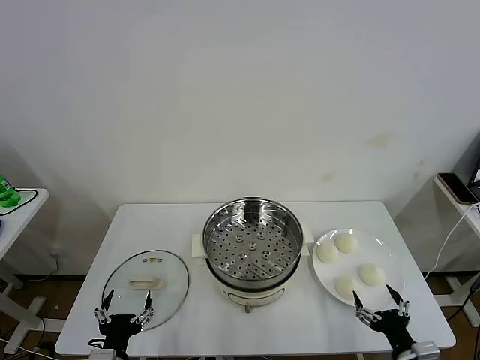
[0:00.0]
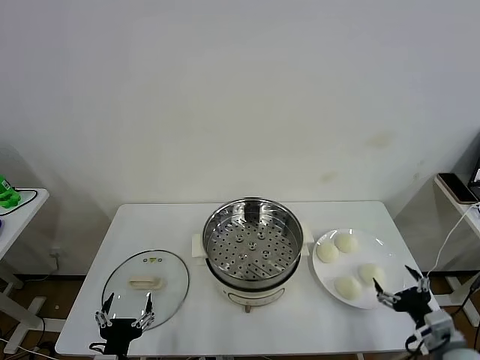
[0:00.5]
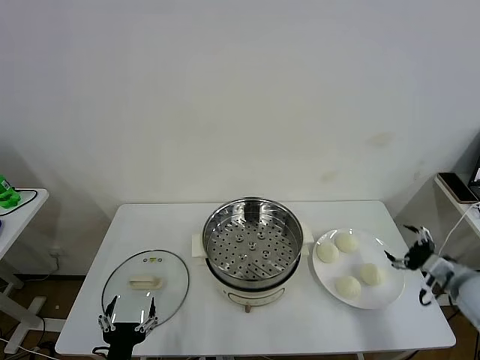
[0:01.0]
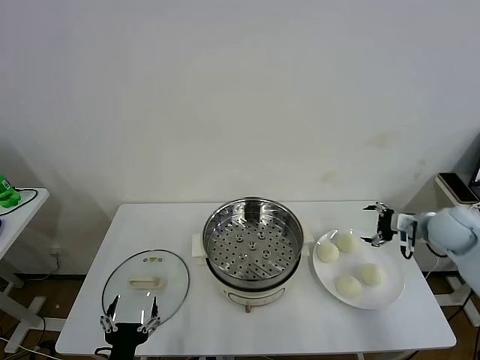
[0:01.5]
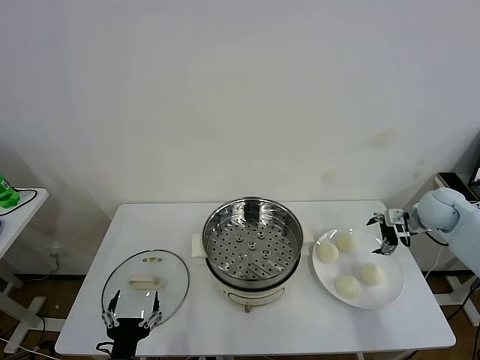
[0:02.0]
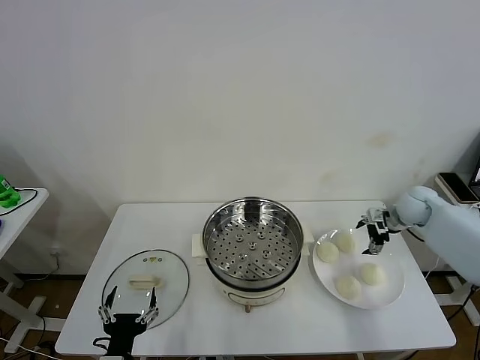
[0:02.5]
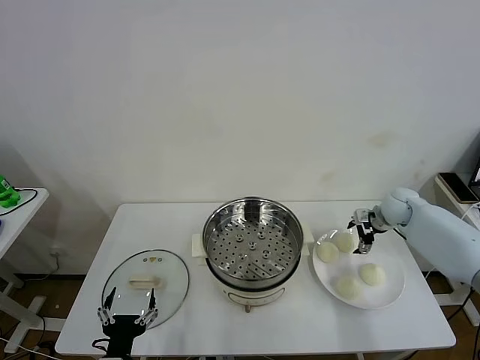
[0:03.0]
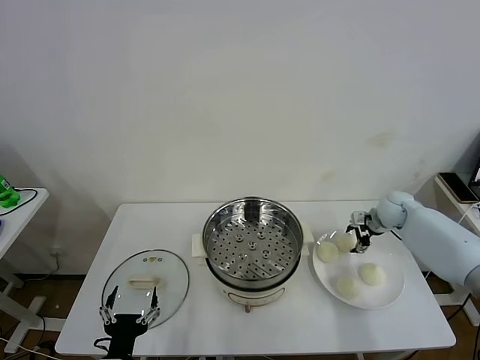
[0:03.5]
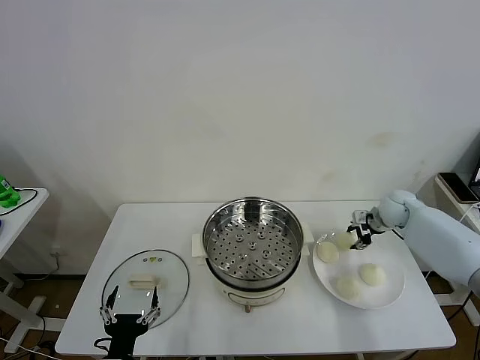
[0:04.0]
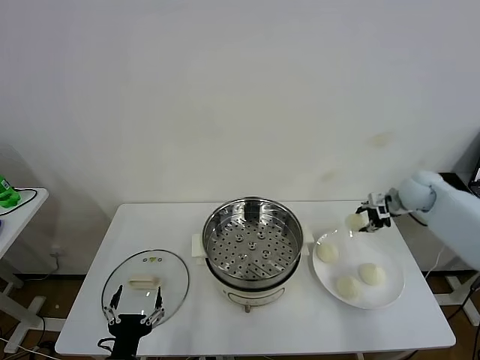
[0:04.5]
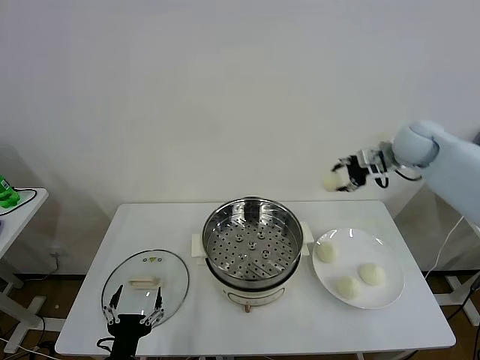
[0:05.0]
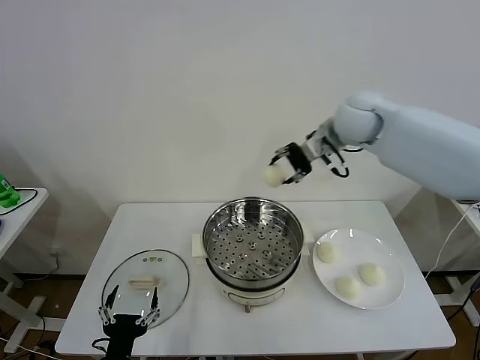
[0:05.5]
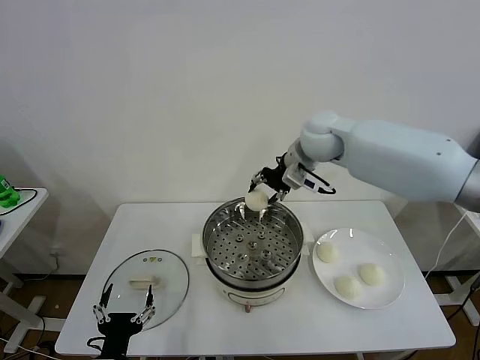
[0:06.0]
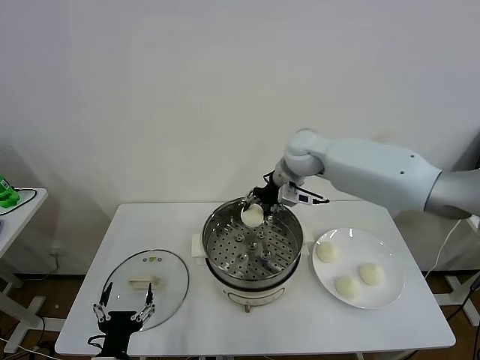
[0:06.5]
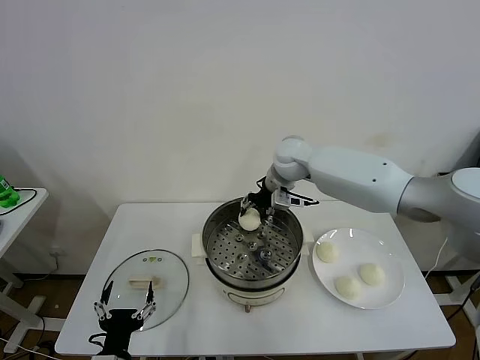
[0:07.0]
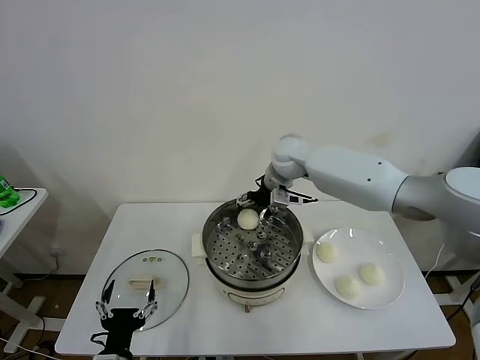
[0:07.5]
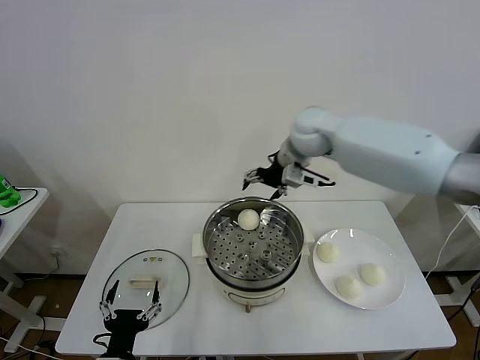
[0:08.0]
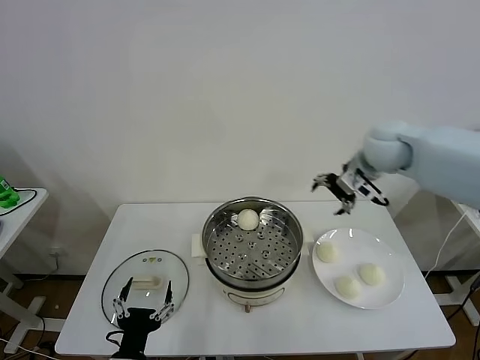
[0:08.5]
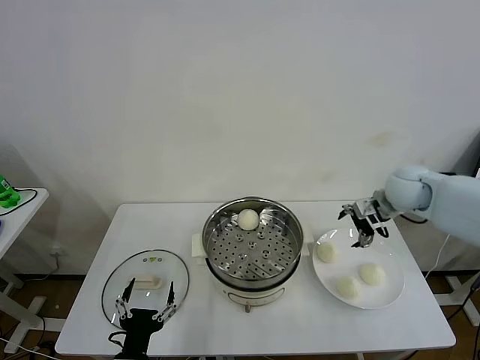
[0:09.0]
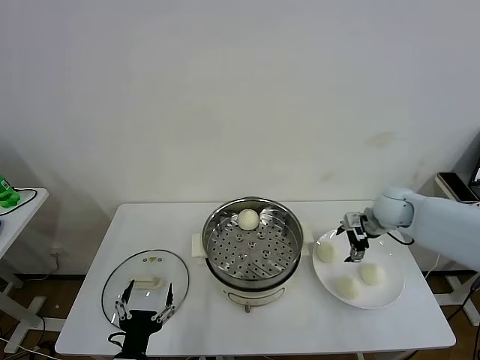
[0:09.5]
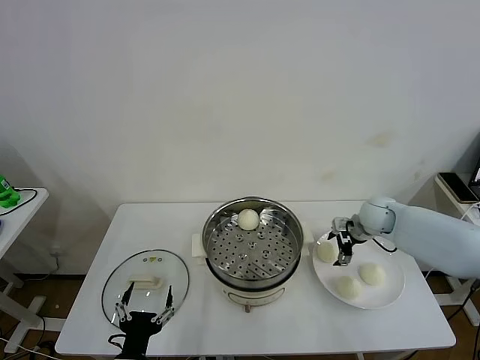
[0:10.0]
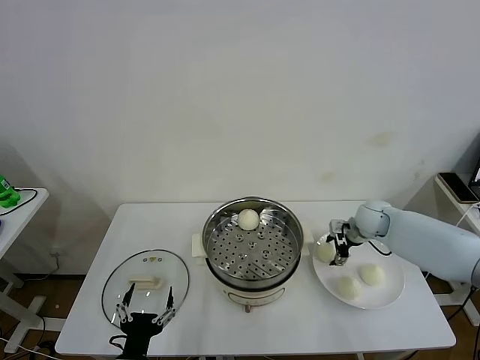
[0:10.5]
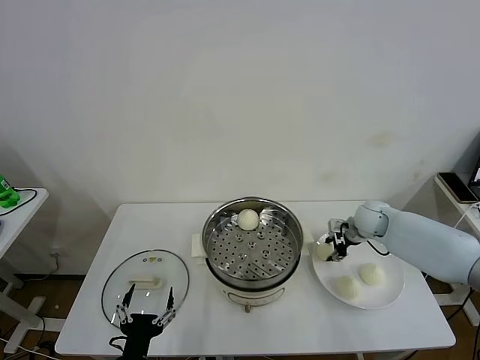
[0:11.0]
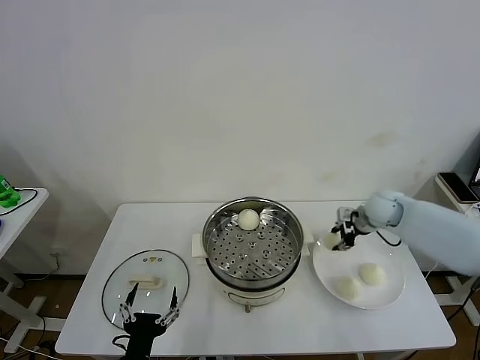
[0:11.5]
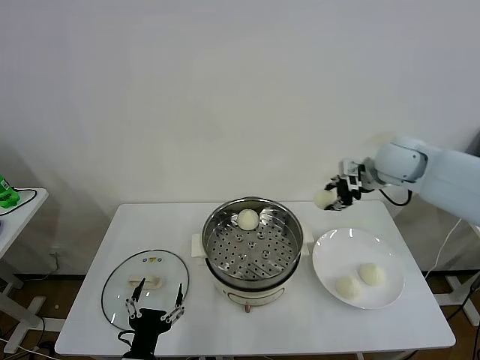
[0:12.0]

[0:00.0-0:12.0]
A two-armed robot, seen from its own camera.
Task of the whole recording: take steamed baozi put them in steamer then cover it.
Step, 0:00.0 to 0:03.5: Grasp the baozi with right gripper.
Step, 0:04.0 to 0:07.0: Place the baozi on the plate with right gripper.
Step, 0:07.5 to 0:11.0: Grasp the baozi with right gripper.
0:02.0 to 0:04.0: The right gripper shifts by some 10 cm, and closes its fingers.
0:04.0 to 0:06.0: The right gripper goes about 30 cm to the left and upward.
0:06.0 to 0:08.0: The right gripper reaches some 5 cm downward, then returns, and opens.
0:08.0 to 0:10.0: The right gripper travels downward and to the right by about 30 cm.
0:10.0 to 0:12.0: The right gripper heads upward, covering roughly 20 cm, and closes.

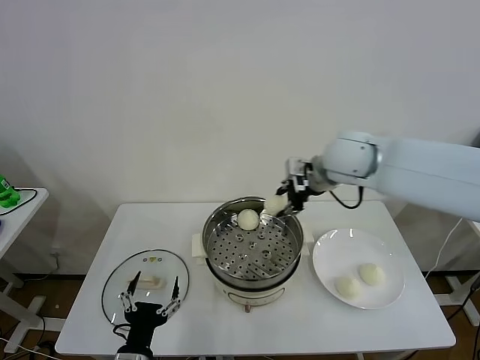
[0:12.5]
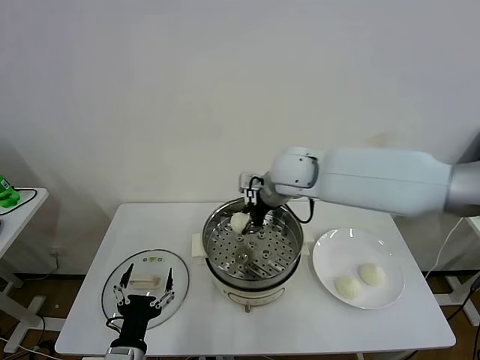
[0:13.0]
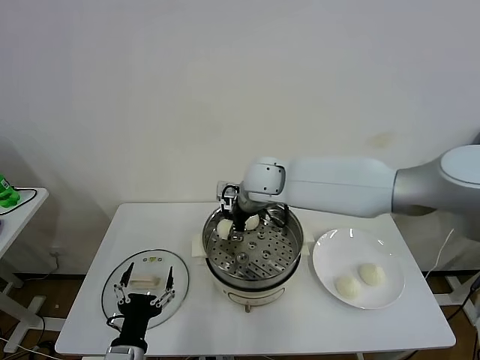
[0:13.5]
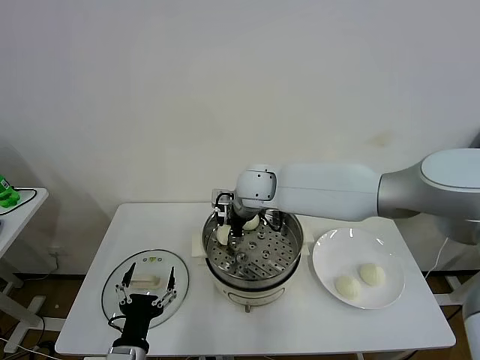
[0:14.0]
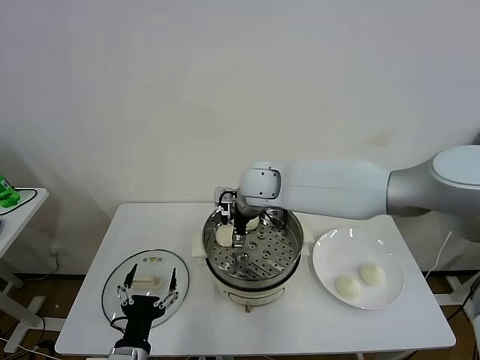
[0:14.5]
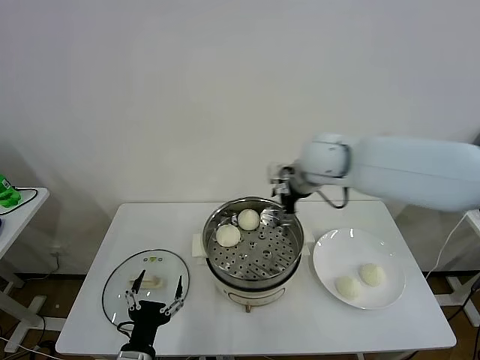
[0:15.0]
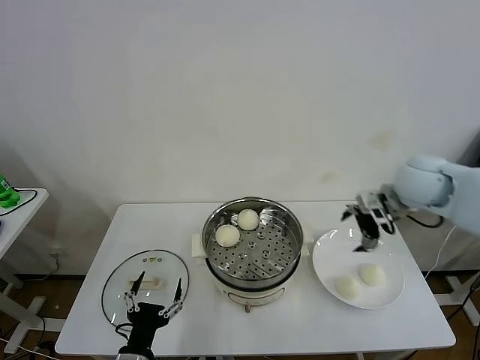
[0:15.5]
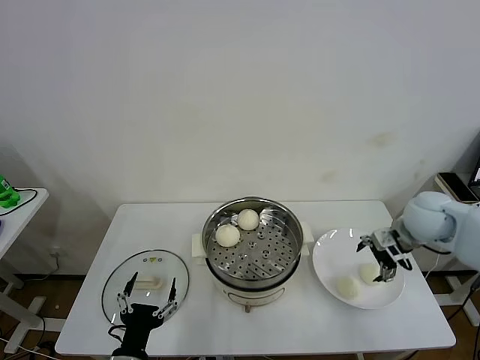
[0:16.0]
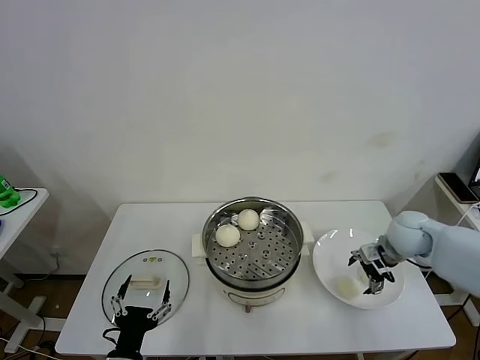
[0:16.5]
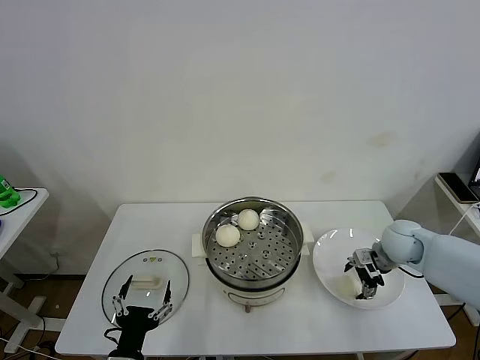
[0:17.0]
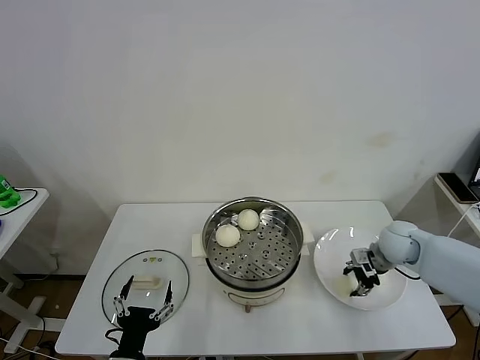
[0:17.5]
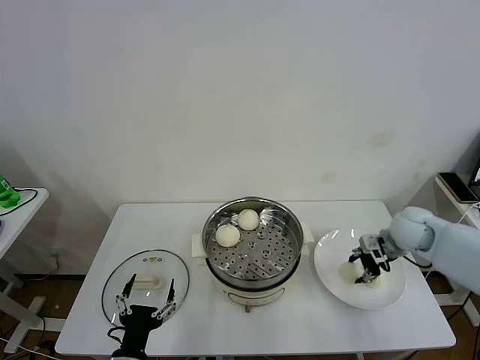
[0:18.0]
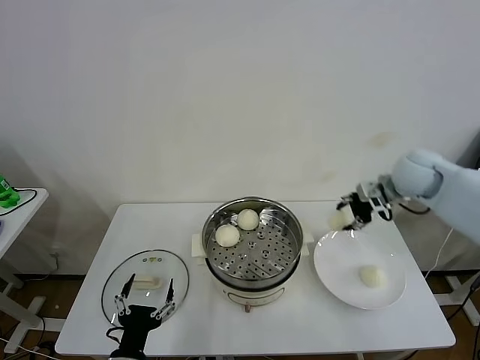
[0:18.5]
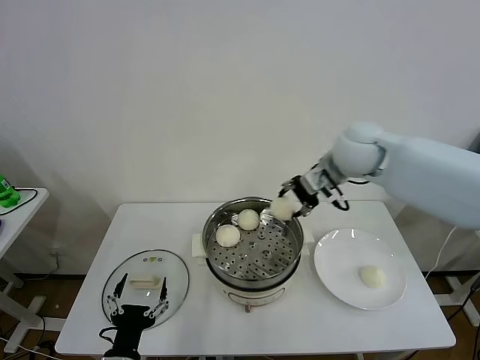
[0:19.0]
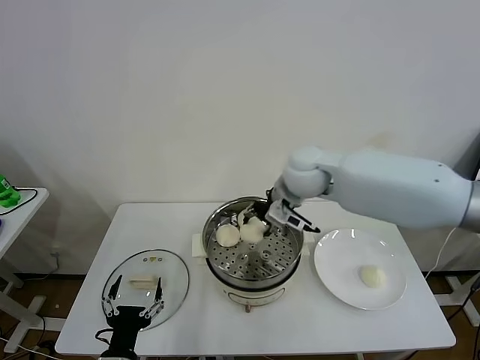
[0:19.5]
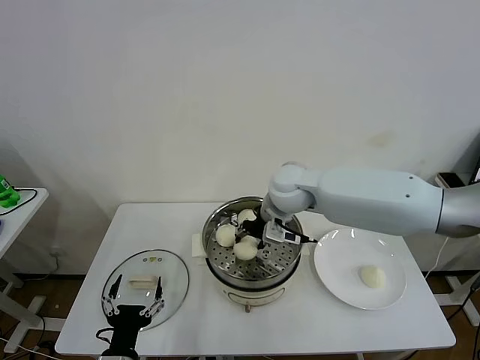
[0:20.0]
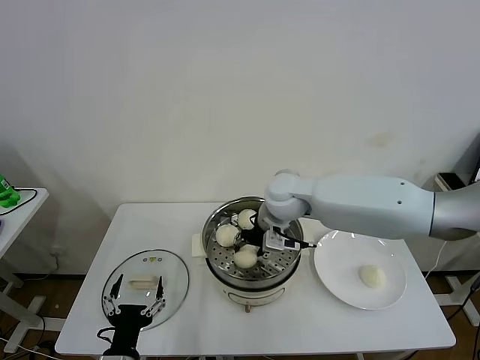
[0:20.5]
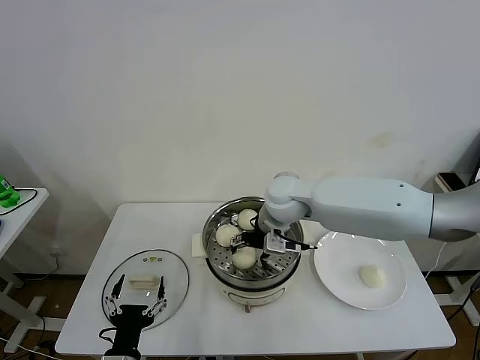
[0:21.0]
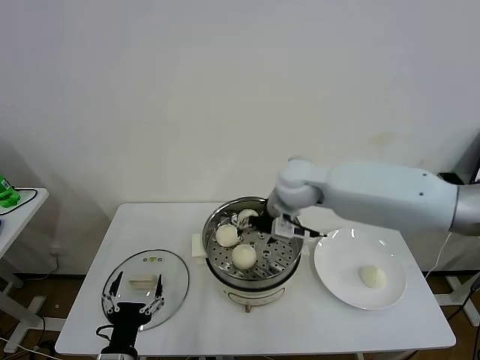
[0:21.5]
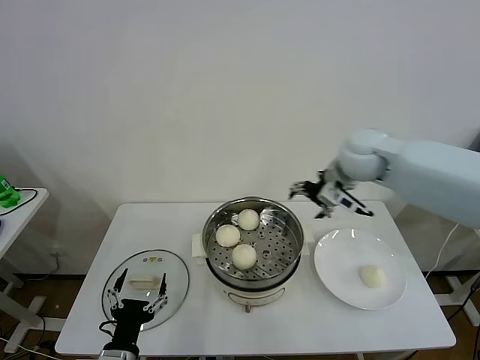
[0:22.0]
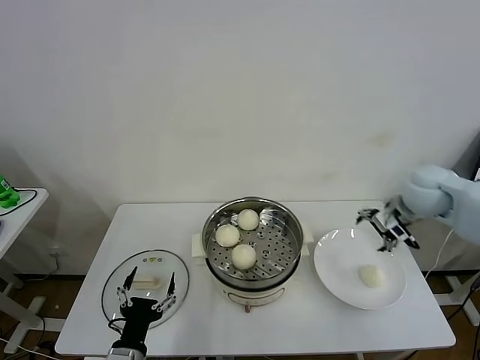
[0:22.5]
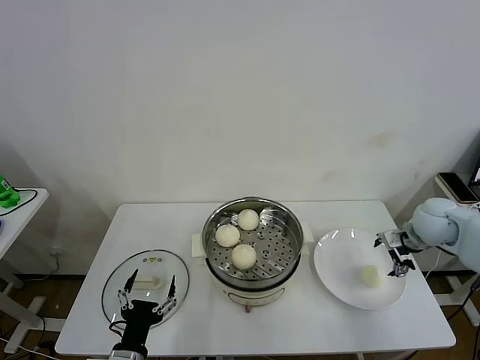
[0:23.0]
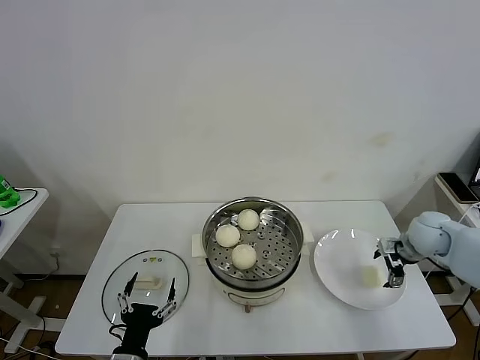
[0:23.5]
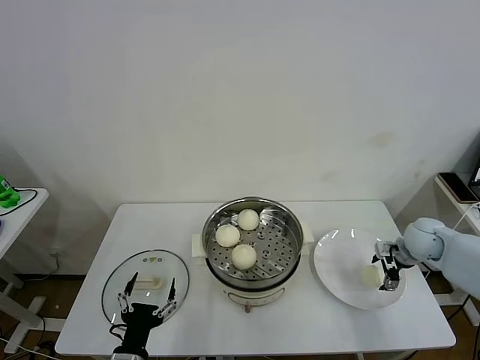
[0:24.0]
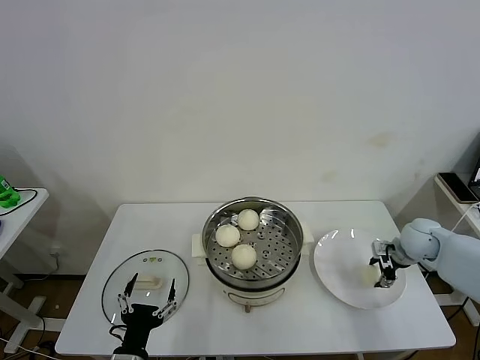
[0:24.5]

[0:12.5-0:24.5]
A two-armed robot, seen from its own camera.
Task of the whole recording: take steamed baozi put them in steamer then cover it.
Step, 0:14.5 to 0:17.5: Grasp the baozi with right gripper.
Step, 0:18.0 to 0:20.5: Place the baozi on the plate with right gripper.
0:12.5 to 0:14.5: The right gripper goes about 15 cm to the left and downward, and opens its fingers.
0:14.5 to 0:16.5: The right gripper shifts approximately 35 cm to the right.
0:16.5 to 0:18.5: The right gripper is displaced upward and forward by some 15 cm, and closes.
0:18.5 to 0:20.5: The right gripper goes roughly 25 cm to the left.
0:20.5 to 0:22.5: The right gripper moves to the right, some 30 cm, and opens up.
0:22.5 to 0:24.5: The right gripper shifts about 15 cm downward, and closes up.

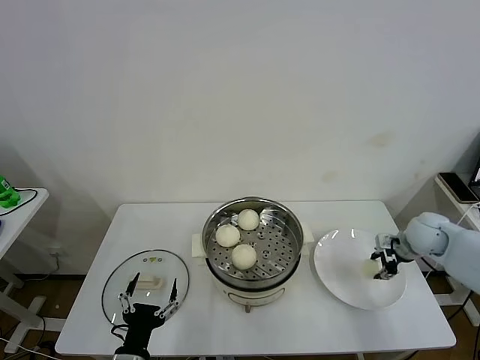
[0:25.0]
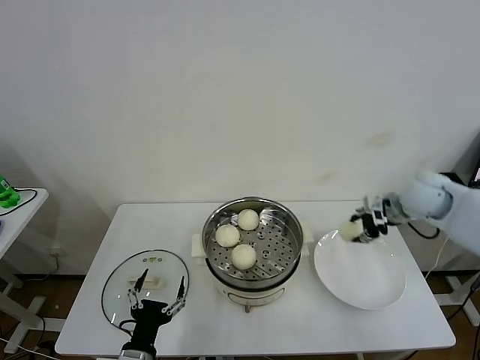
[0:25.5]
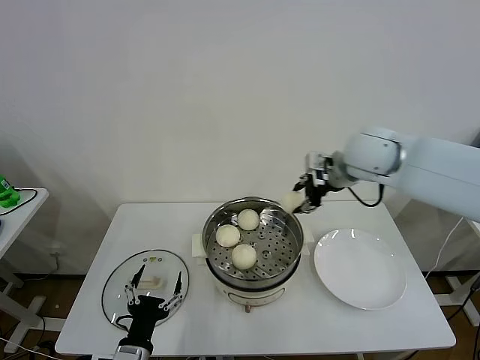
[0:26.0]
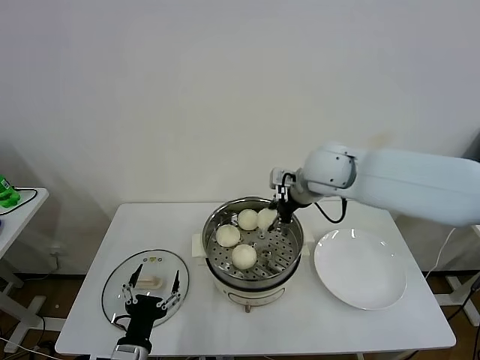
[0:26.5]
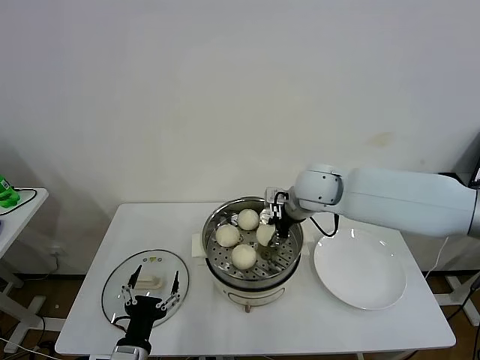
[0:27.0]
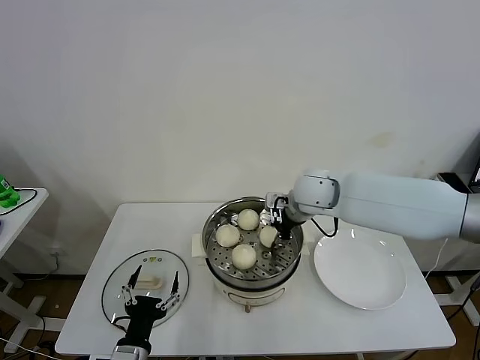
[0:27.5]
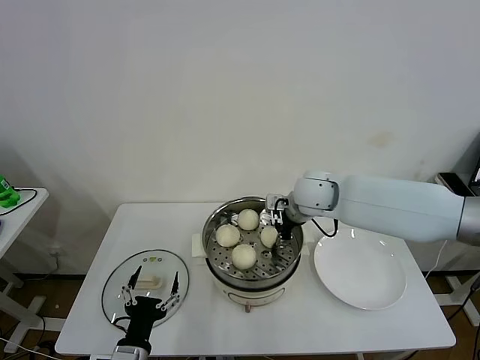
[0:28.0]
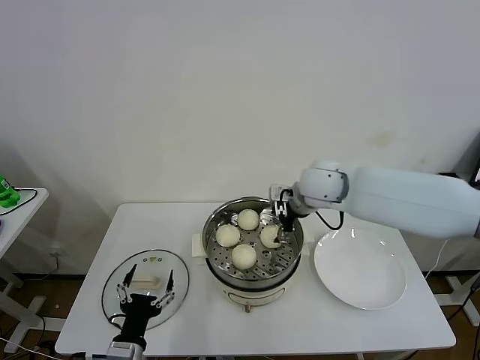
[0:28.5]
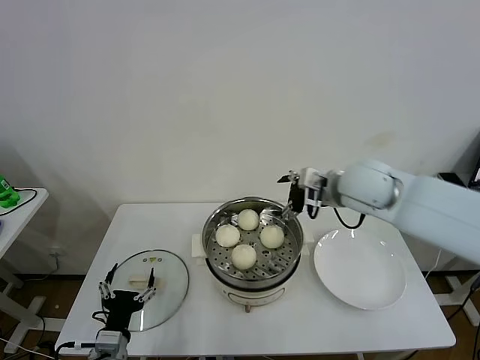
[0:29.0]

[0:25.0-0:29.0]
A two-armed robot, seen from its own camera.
Task of the whole recording: take steamed baozi put them in steamer then cover it.
Step, 0:25.0 to 0:28.0: Place the baozi on the plate with right gripper.
0:25.0 to 0:27.0: The right gripper shifts about 30 cm to the left.
0:27.0 to 0:29.0: The right gripper is displaced to the right by some 5 cm, and opens its fingers. The left gripper shifts by roughly 5 cm.
